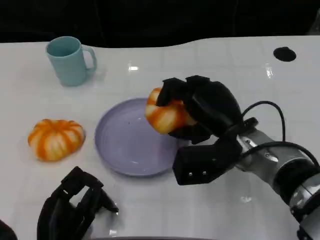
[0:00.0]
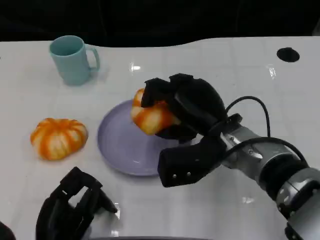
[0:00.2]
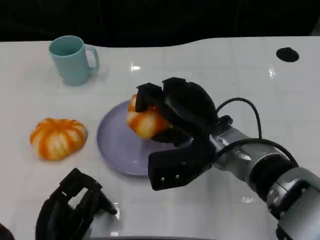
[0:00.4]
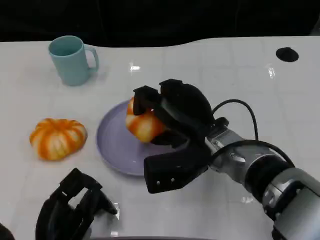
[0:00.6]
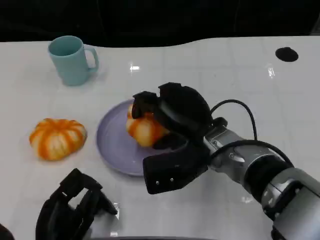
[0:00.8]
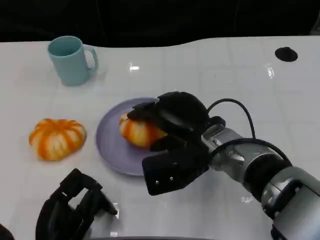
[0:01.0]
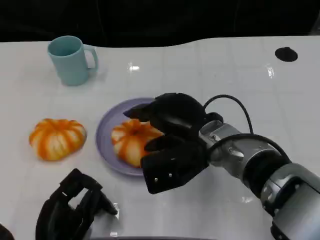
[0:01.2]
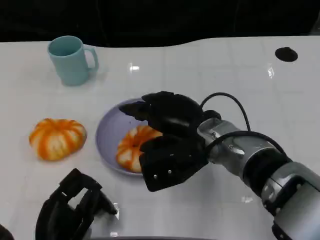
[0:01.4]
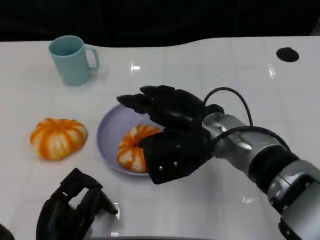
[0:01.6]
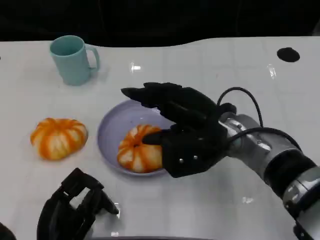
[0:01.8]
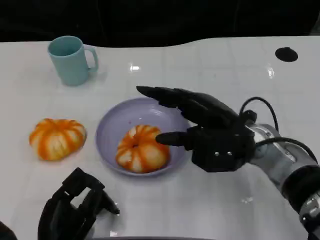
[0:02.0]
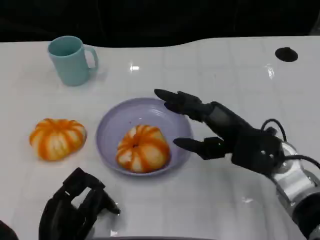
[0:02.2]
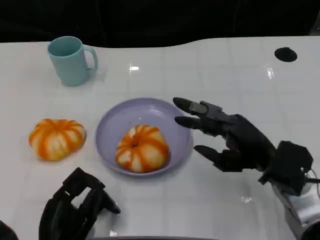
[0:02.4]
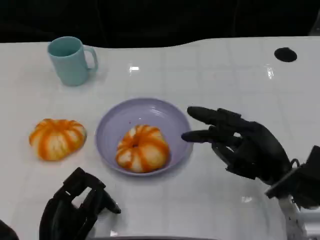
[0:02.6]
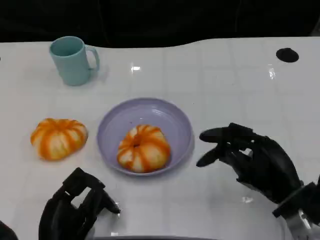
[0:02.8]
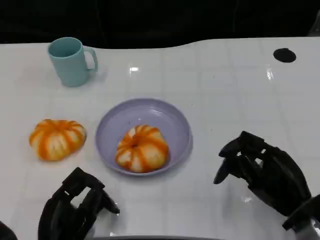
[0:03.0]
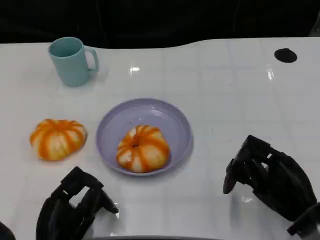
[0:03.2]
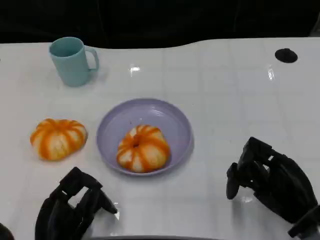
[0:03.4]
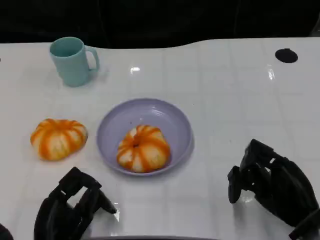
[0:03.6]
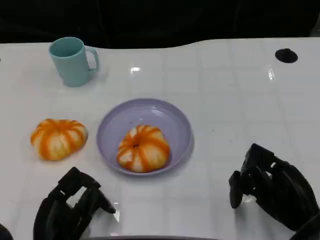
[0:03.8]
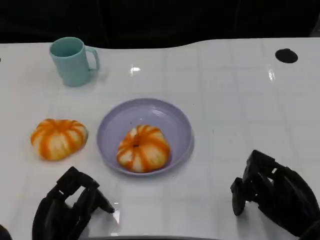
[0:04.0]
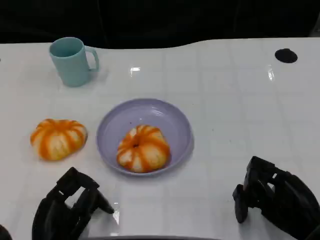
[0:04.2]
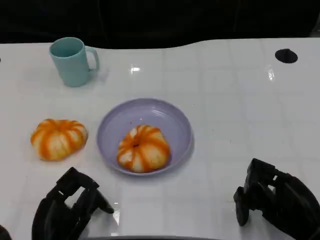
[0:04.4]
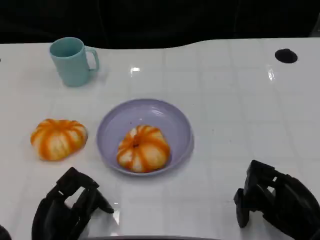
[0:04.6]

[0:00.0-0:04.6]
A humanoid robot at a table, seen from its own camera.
Task of the whole recording: Grasp the bread from the table and place it into the plate.
0:01.6 to 0:03.0: The right hand heads to the right, backward and downward, covering roughly 20 cm.
0:03.0 to 0:04.6: The hands stay close to where they were, moving slightly.

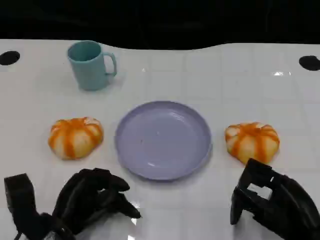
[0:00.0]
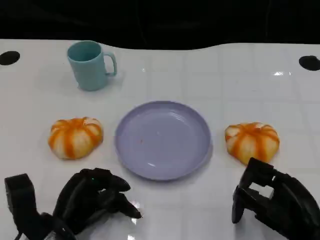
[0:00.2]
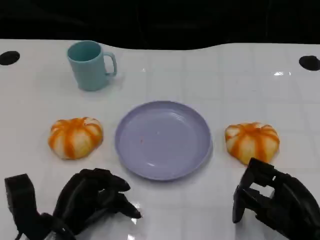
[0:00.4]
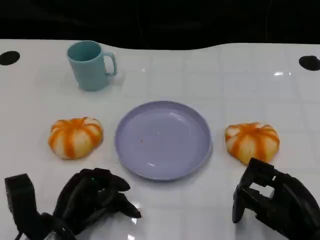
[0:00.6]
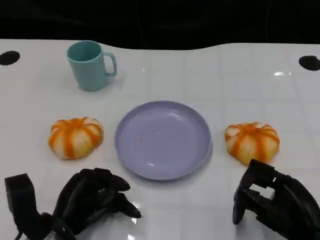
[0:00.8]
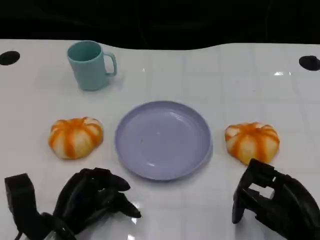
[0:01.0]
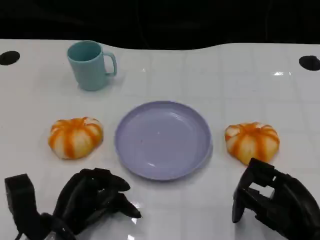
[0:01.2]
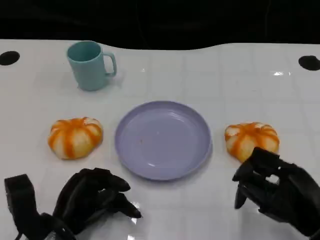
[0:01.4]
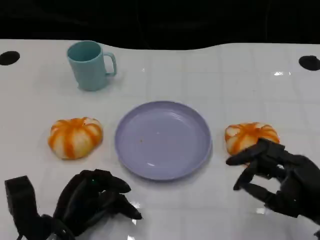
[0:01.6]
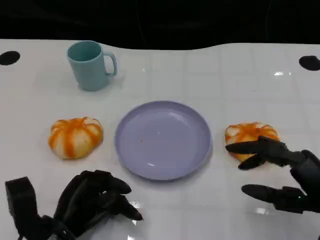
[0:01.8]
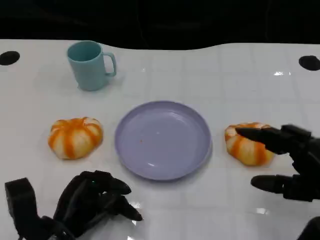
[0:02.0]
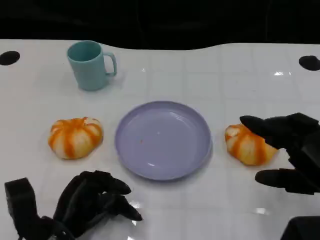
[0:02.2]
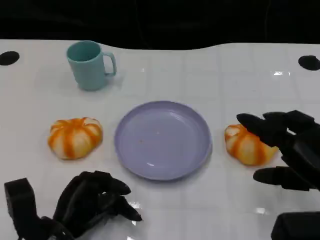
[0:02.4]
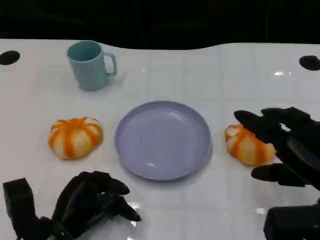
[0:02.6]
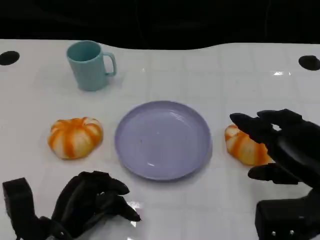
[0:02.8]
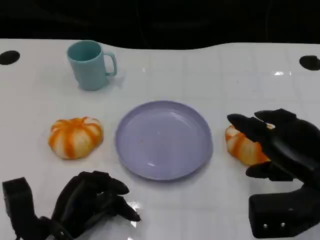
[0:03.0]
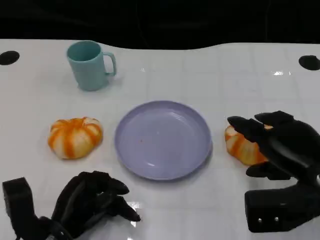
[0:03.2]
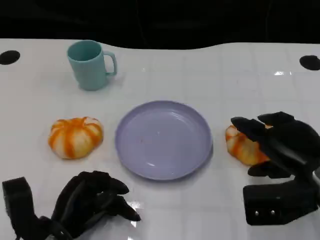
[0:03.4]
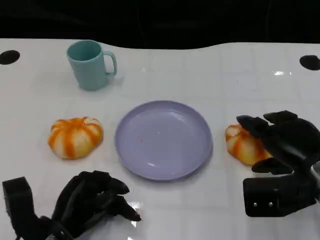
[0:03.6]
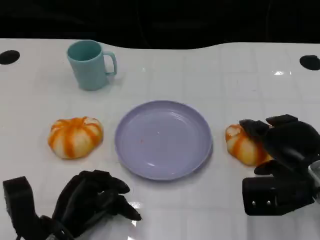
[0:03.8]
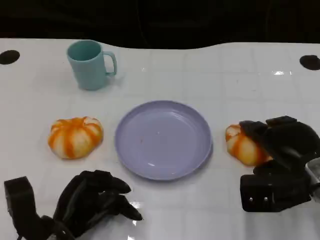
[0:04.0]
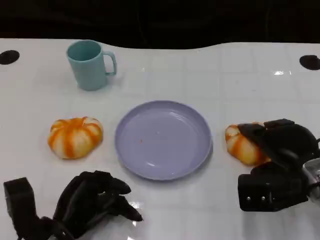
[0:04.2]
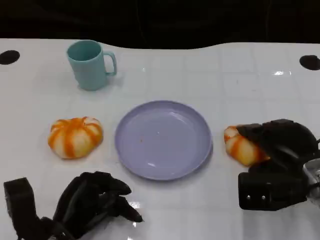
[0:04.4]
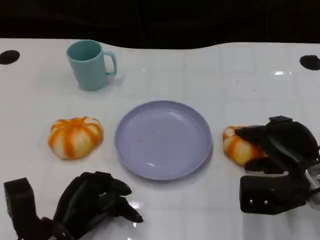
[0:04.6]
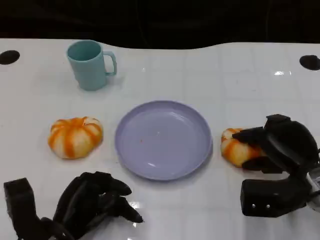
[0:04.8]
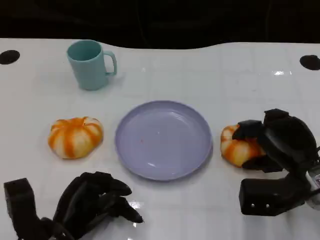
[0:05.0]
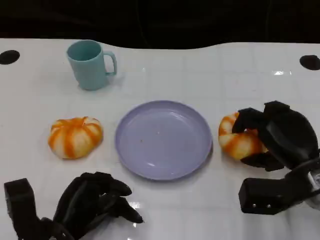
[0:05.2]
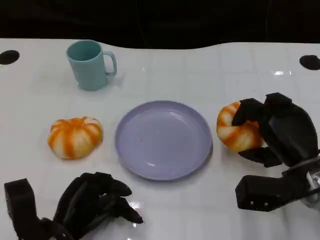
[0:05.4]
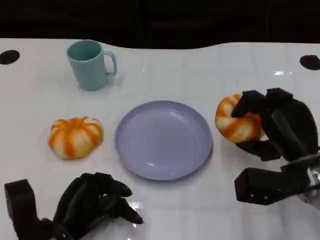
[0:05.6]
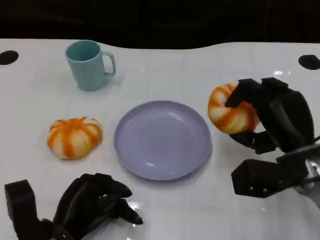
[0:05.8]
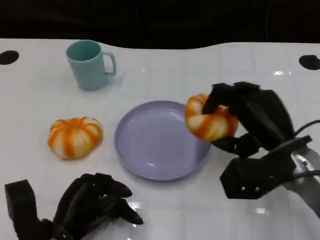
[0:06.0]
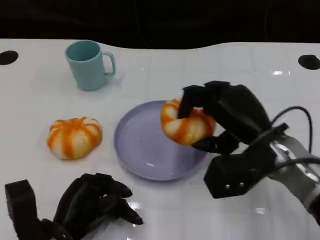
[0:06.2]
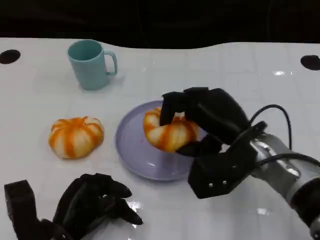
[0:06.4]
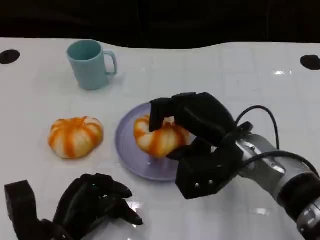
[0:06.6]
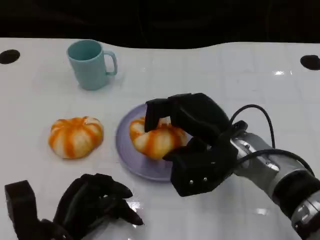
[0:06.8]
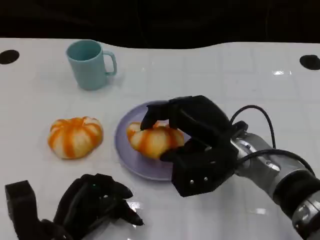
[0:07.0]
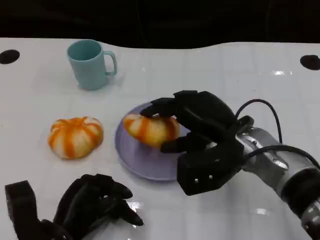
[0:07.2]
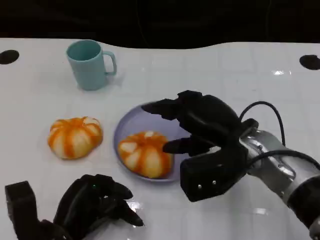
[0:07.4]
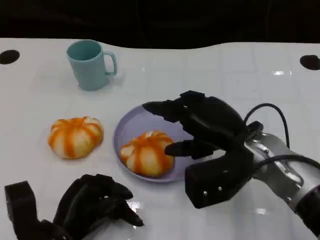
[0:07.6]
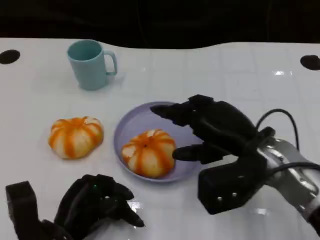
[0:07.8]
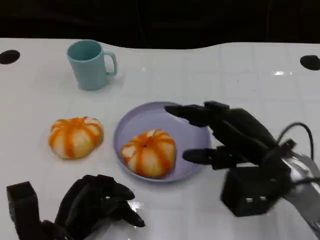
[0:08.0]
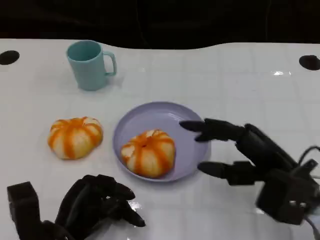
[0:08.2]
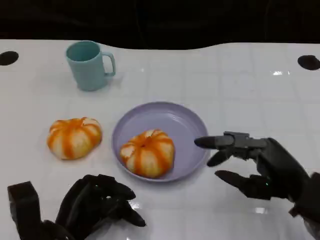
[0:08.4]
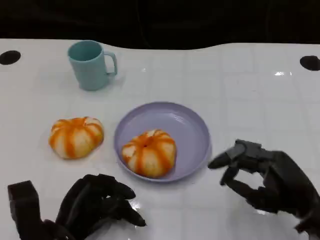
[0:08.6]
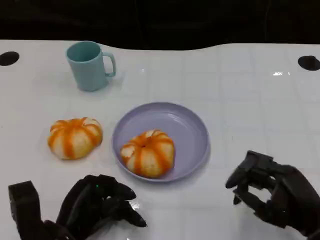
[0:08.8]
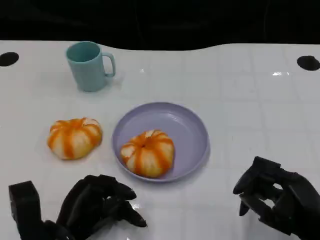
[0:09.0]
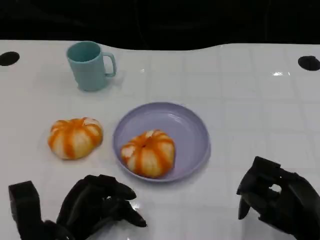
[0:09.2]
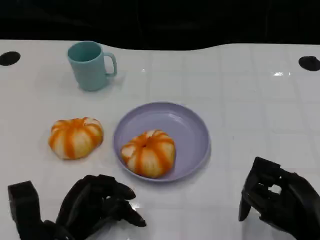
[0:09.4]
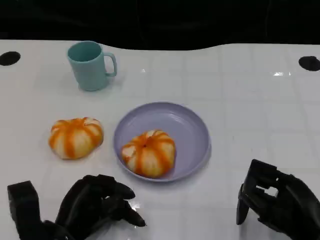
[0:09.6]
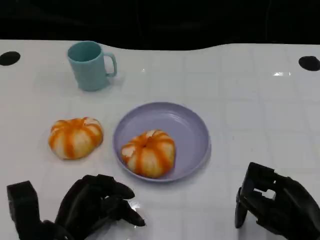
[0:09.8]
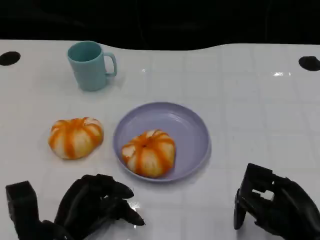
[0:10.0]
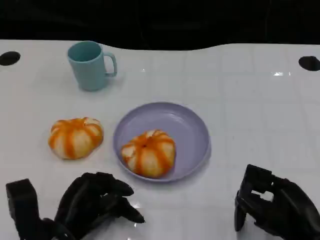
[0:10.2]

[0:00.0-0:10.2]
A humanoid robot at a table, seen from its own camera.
Task of the whole recording: Grasp the bread from the table and place it into the plate.
0:00.0 to 0:01.4: There are only small adjustments of the hands.
0:01.4 to 0:03.0: The right hand moves forward, approximately 5 cm.
0:03.0 to 0:04.4: The right hand moves about 5 cm.
0:05.8 to 0:07.2: The right hand goes approximately 10 cm to the left.
0:07.2 to 0:08.8: The right hand goes roughly 20 cm backward, to the right and downward.
0:08.8 to 0:10.2: The hands make only small movements.

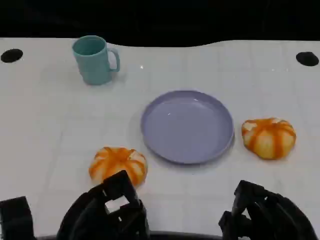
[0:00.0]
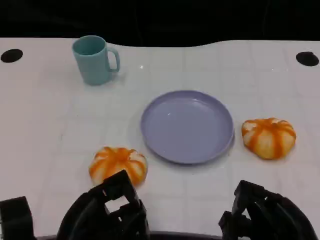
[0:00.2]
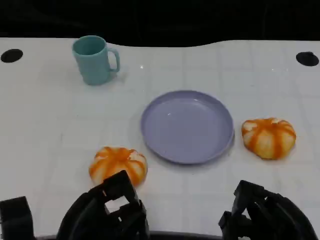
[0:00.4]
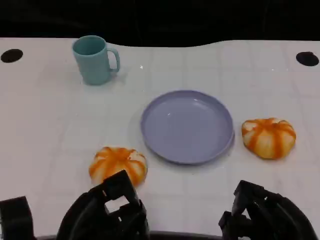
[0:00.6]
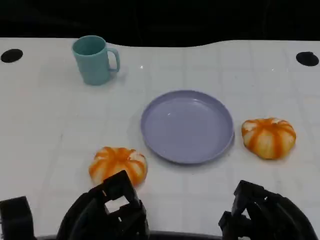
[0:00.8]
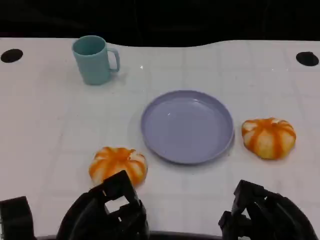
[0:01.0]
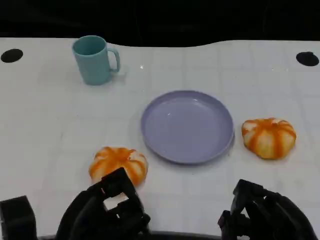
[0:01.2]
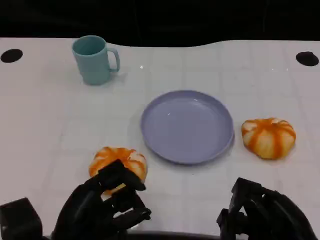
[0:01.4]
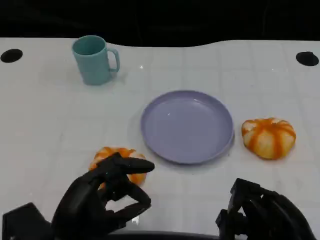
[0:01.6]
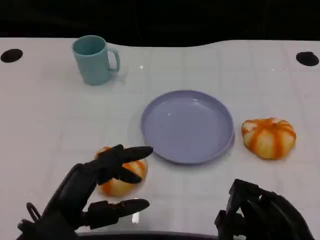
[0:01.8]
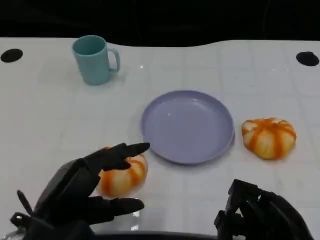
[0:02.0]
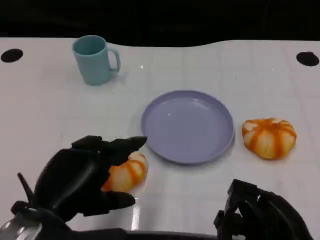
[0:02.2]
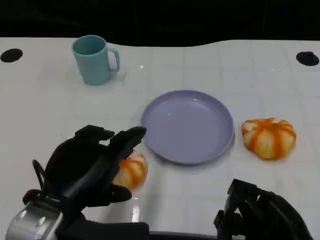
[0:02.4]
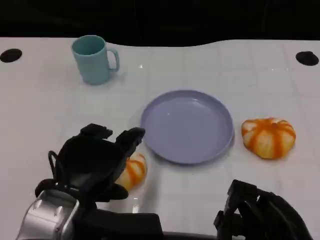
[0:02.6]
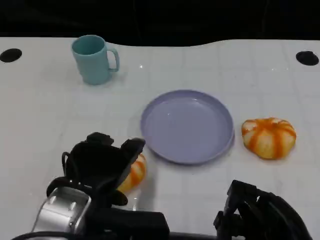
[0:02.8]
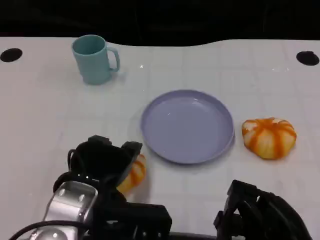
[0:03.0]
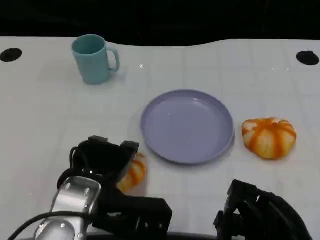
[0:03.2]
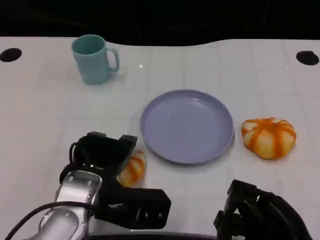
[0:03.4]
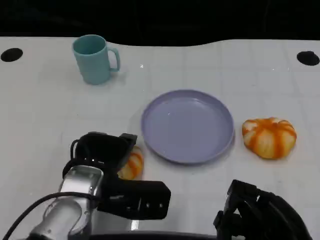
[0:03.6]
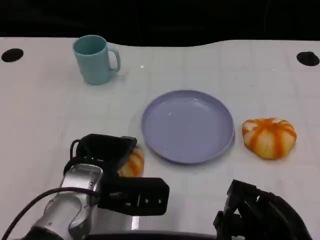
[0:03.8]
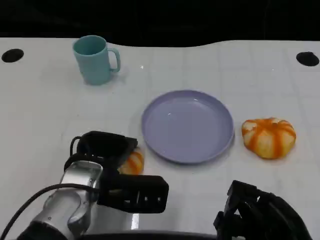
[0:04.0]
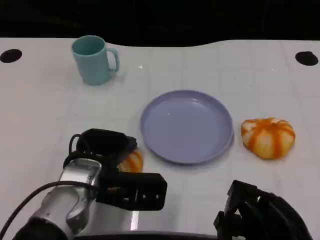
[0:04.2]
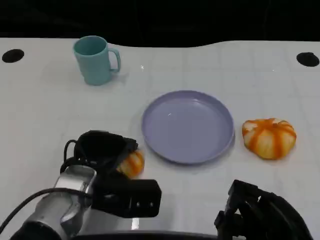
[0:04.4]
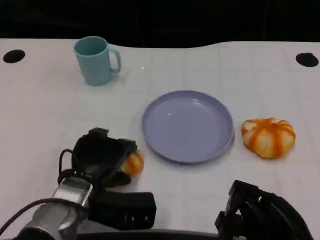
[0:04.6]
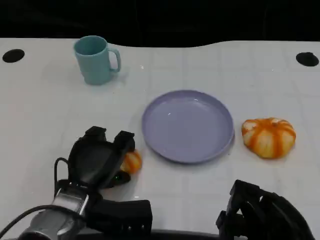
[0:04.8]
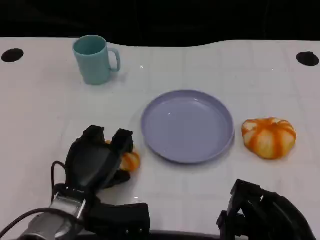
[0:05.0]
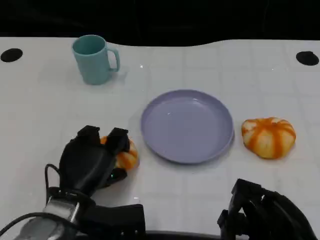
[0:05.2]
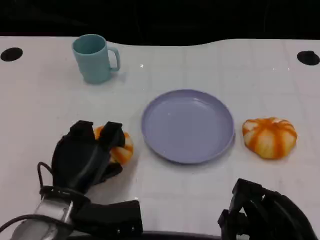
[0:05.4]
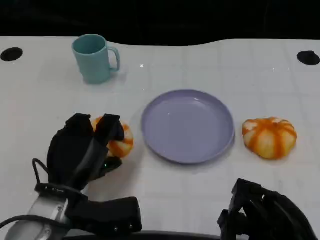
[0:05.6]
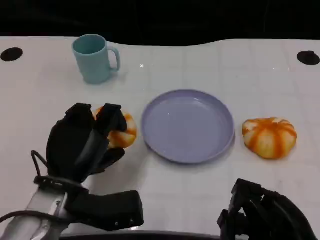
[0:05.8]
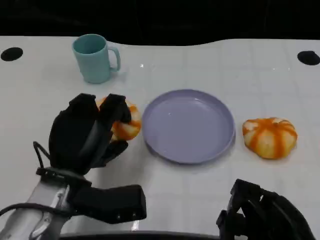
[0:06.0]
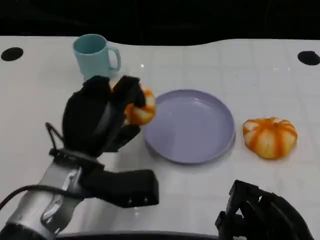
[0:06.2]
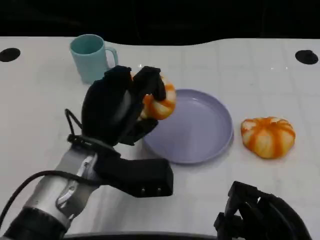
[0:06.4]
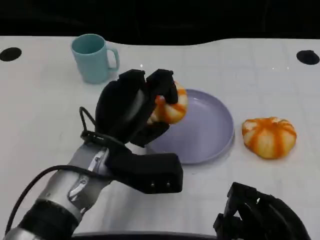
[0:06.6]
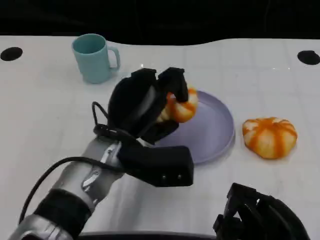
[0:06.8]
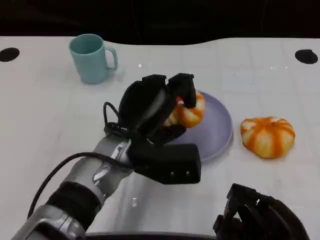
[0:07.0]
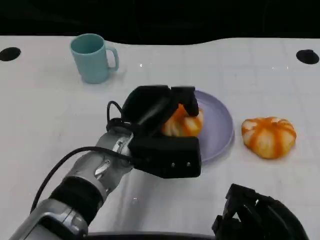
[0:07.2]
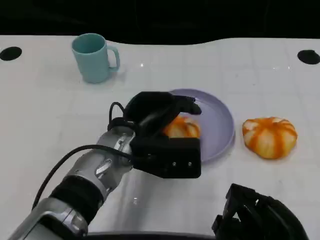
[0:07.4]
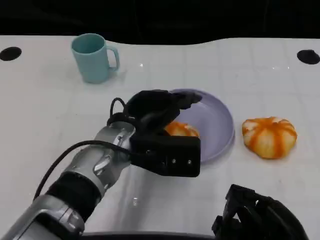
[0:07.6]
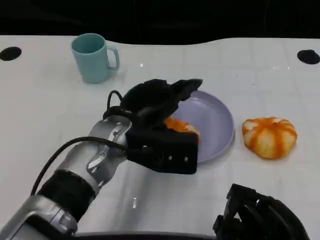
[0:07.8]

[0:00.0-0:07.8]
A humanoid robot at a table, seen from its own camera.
Task of the whole recording: Grasp the bread from the table and place it into the plate.
0:01.6 to 0:03.2: The left hand heads forward, covering some 5 cm.
0:03.2 to 0:04.6: The left hand shifts approximately 5 cm downward.
0:04.6 to 0:06.2: The left hand heads upward, covering about 5 cm.
0:06.2 to 0:07.8: The left hand shifts approximately 5 cm to the right.
